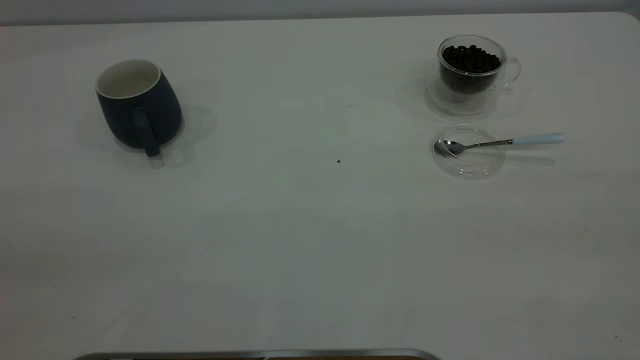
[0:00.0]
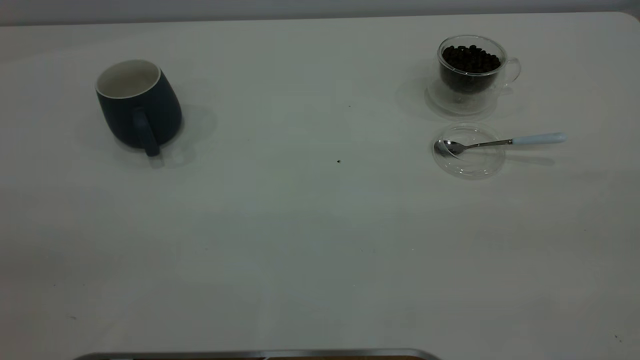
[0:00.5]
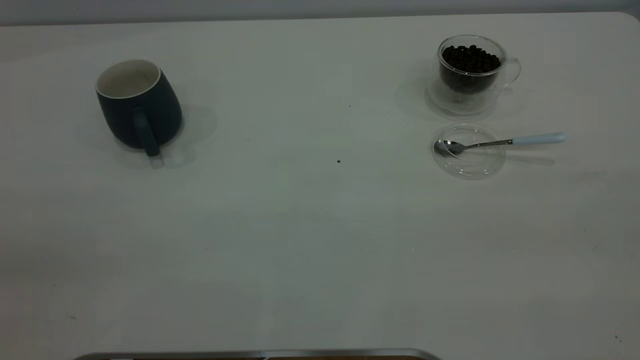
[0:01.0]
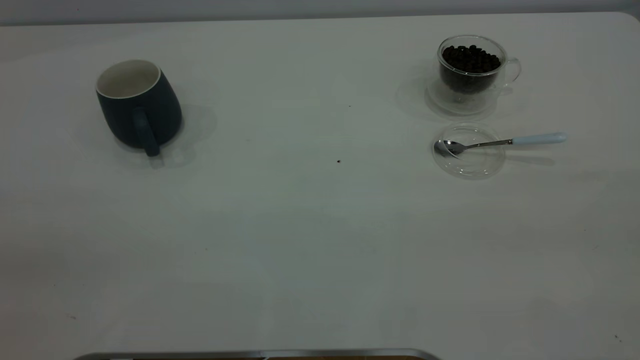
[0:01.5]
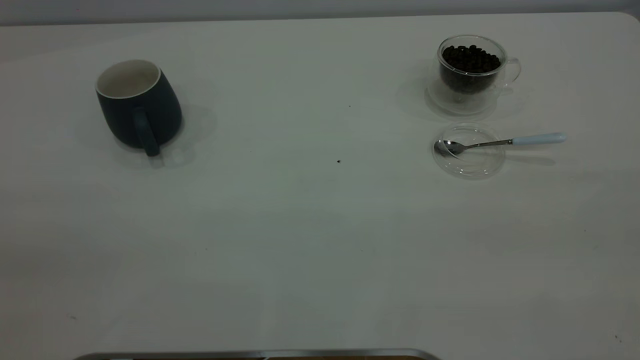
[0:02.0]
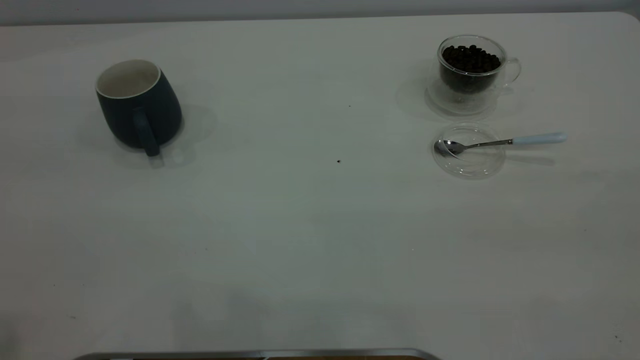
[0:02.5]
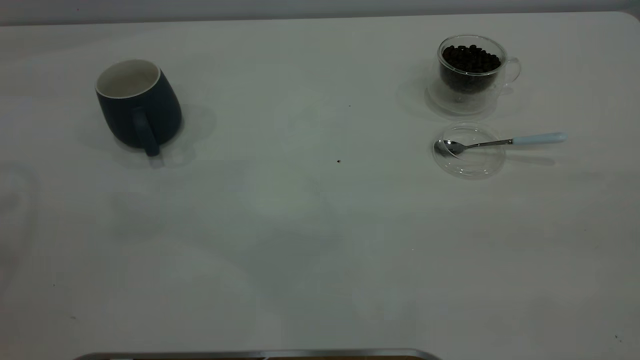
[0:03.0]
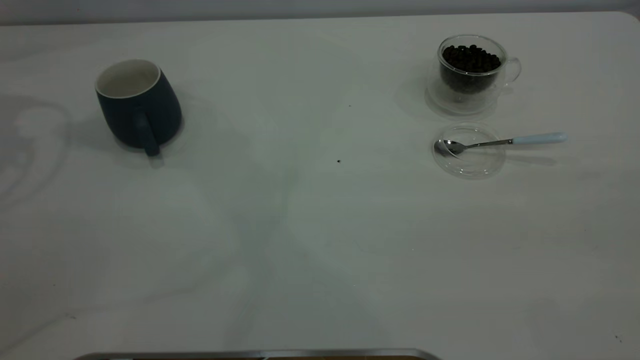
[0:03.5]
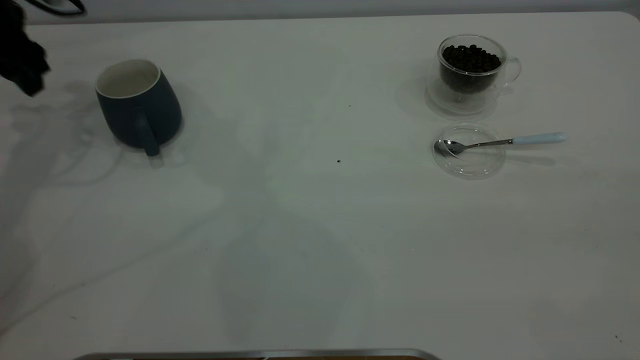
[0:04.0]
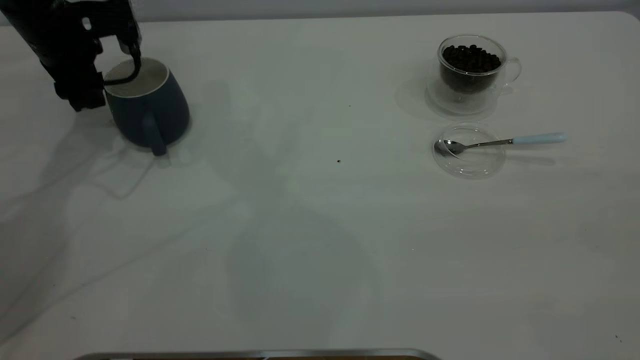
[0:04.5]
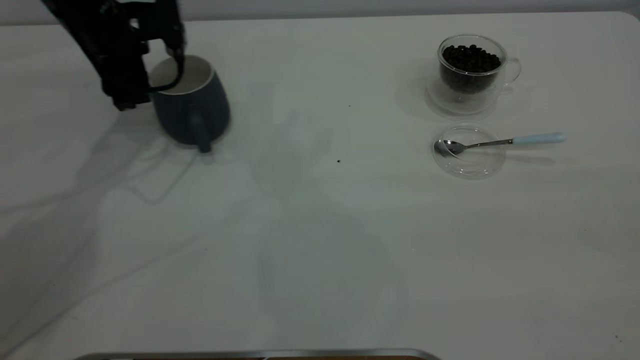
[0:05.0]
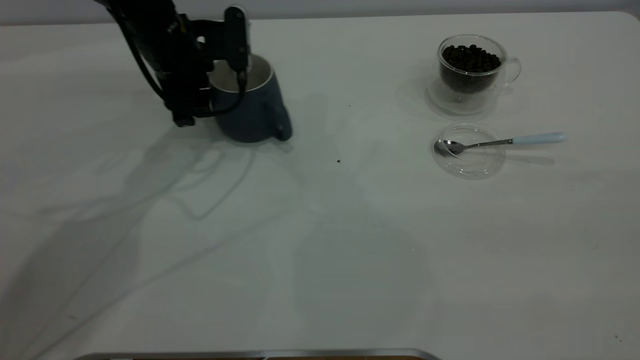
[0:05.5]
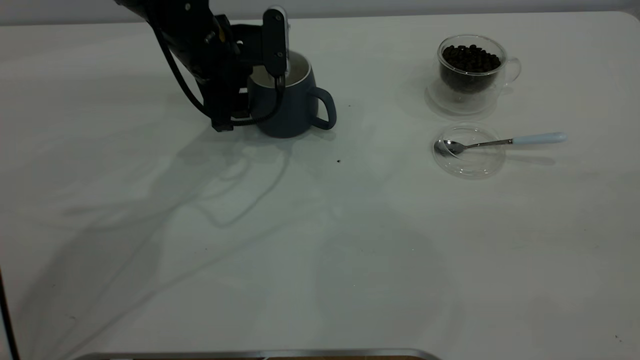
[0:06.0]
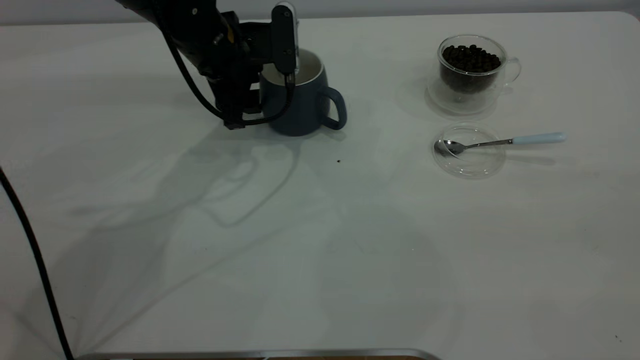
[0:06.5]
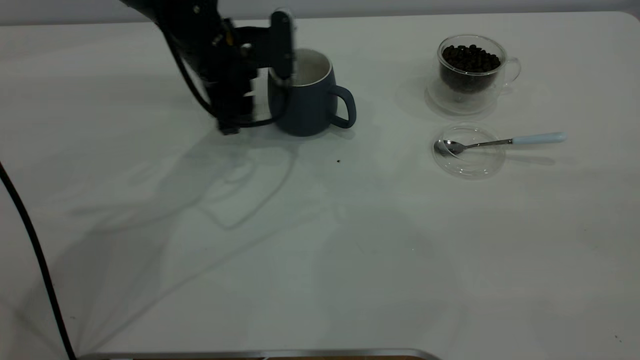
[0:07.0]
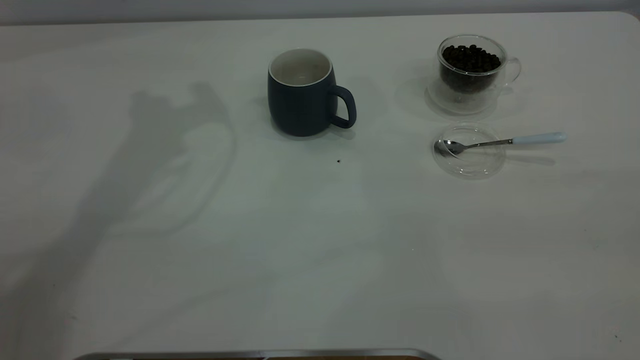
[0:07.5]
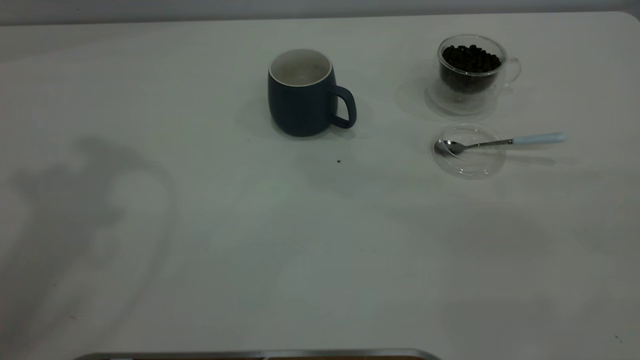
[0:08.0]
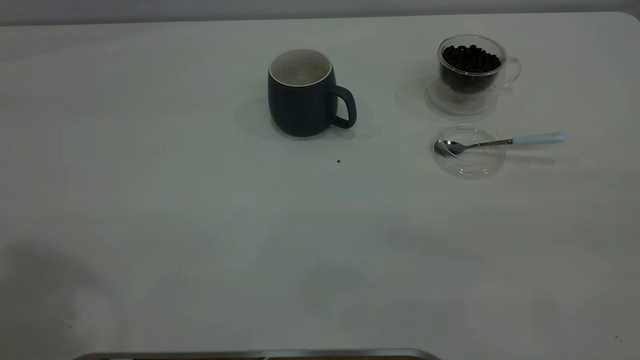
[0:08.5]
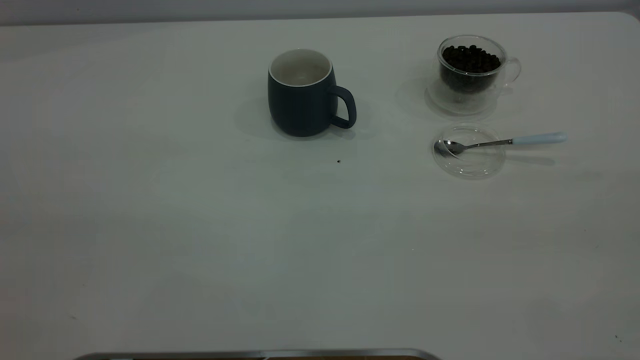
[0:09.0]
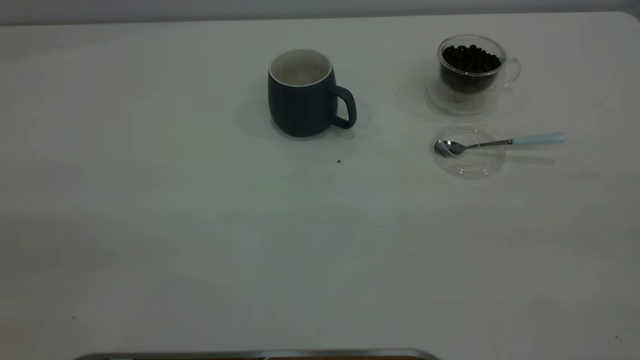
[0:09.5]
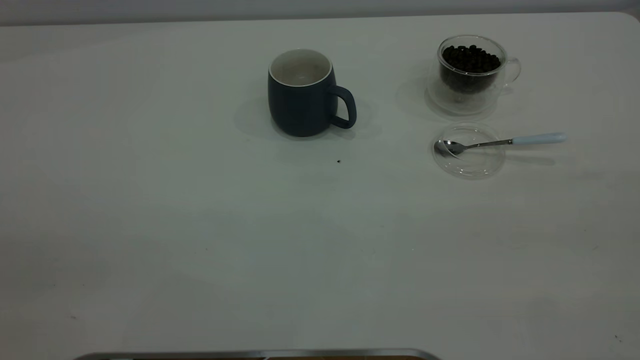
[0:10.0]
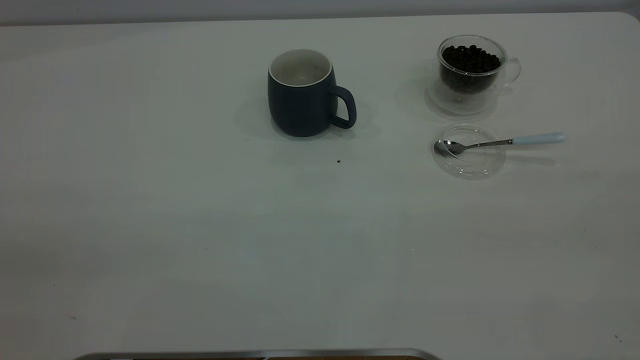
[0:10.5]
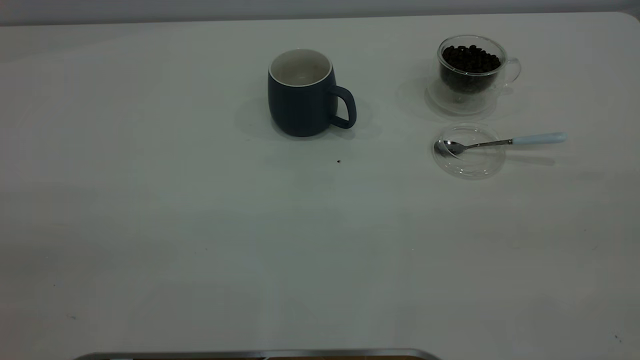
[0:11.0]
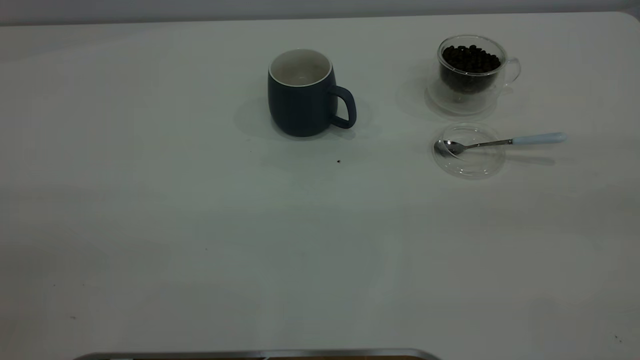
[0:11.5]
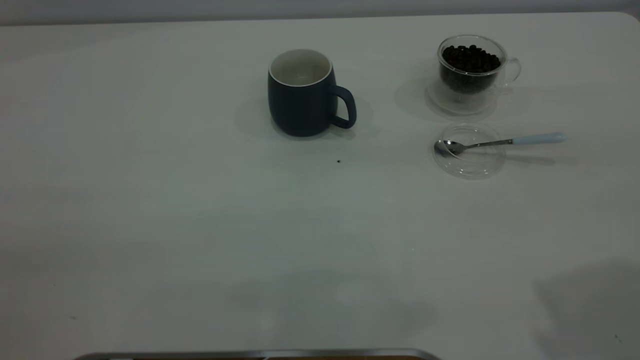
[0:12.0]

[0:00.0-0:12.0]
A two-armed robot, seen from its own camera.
Task of the whole recording: the left gripper place the grey cup in the center of the table, the right gripper take the blue spoon from the cup lid and scoop out the coffee beans from the coffee cup and put them into the grey cup, the right gripper put the spoon back into the cup lid.
Step, 0:00.0 to 0:07.0: Move the cup to the center of view.
0:00.0 to 0:02.0: Both grippers stay put.
0:02.0 to 0:04.0: The left gripper goes roughly 50 cm forward and downward.
0:04.0 to 0:06.0: The left gripper moves to the right, approximately 20 cm.
0:06.0 to 0:08.0: The left gripper moves upward, some 40 cm.

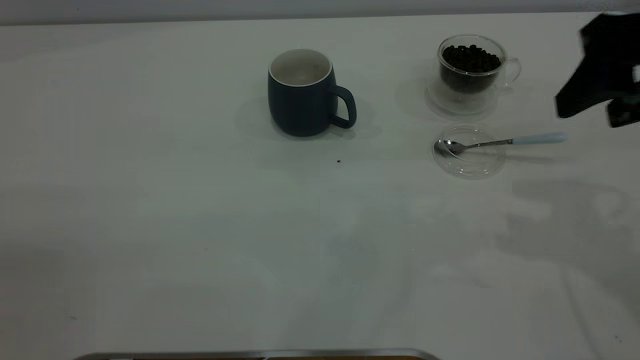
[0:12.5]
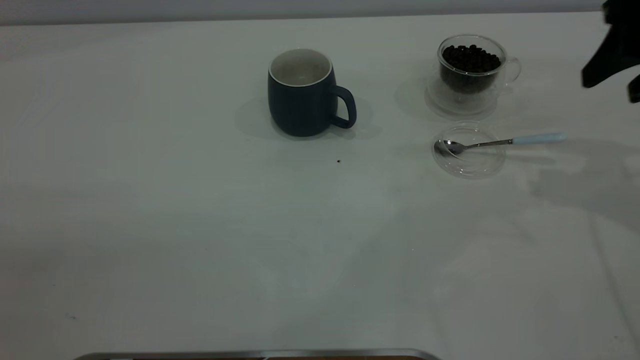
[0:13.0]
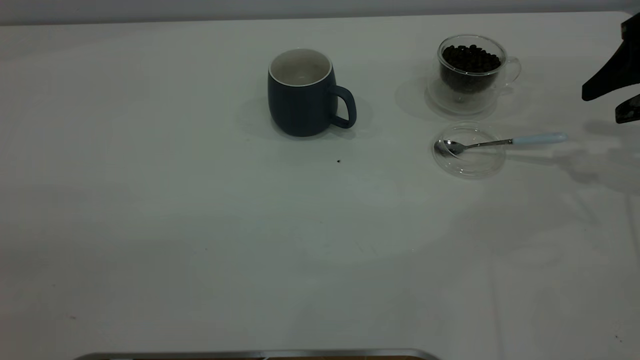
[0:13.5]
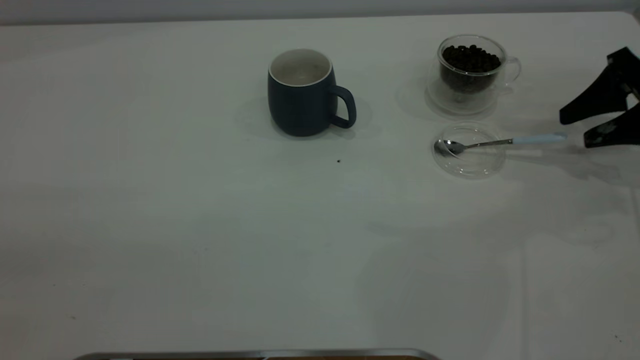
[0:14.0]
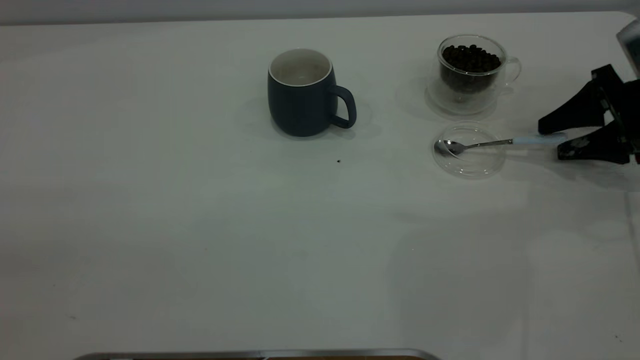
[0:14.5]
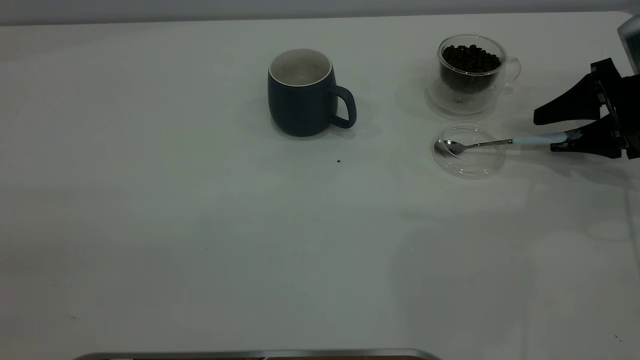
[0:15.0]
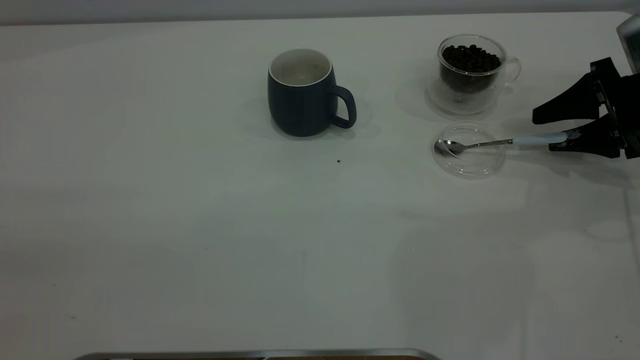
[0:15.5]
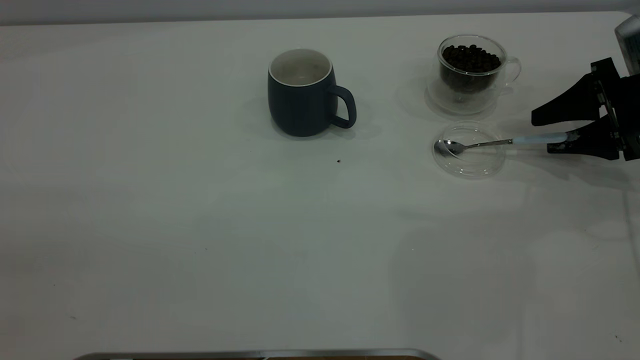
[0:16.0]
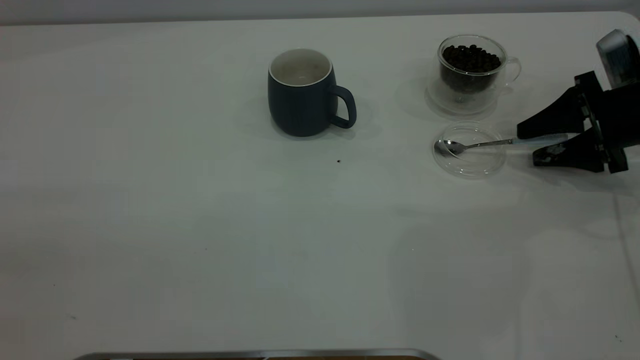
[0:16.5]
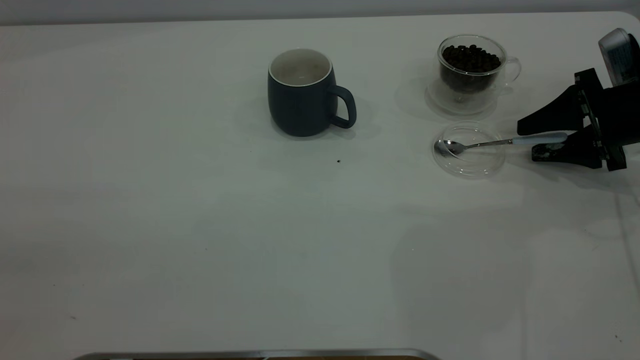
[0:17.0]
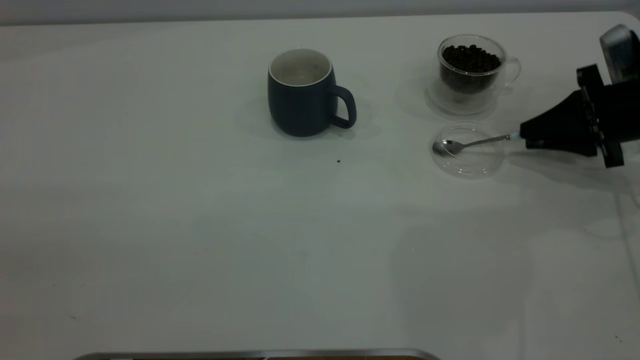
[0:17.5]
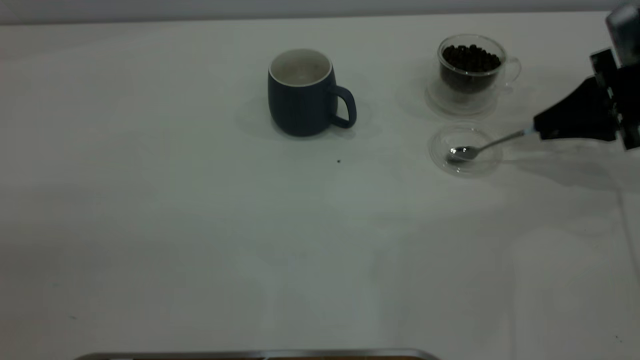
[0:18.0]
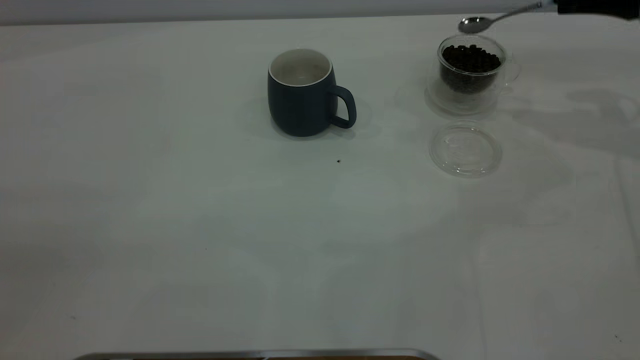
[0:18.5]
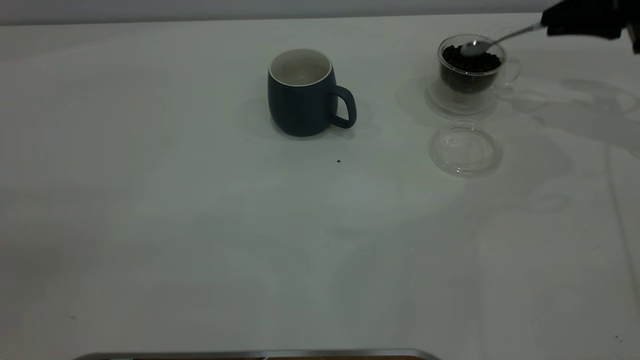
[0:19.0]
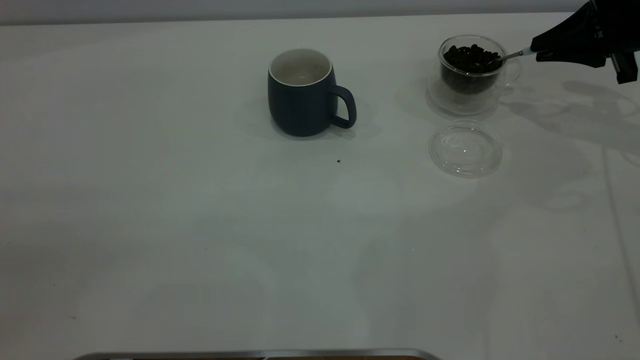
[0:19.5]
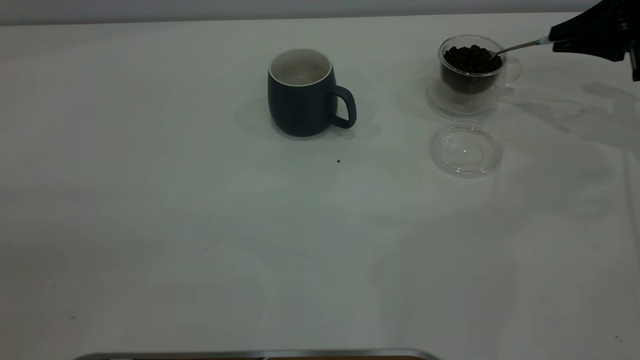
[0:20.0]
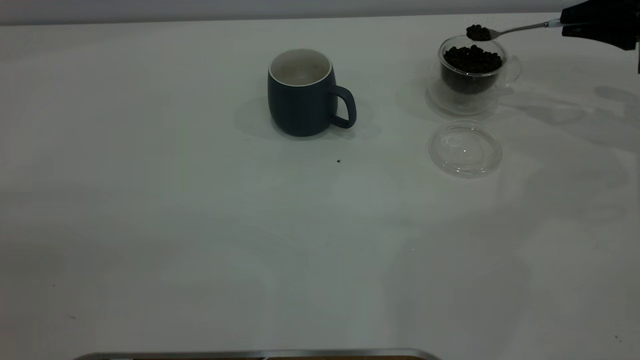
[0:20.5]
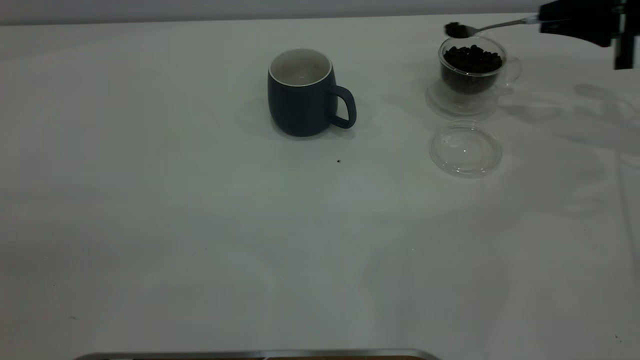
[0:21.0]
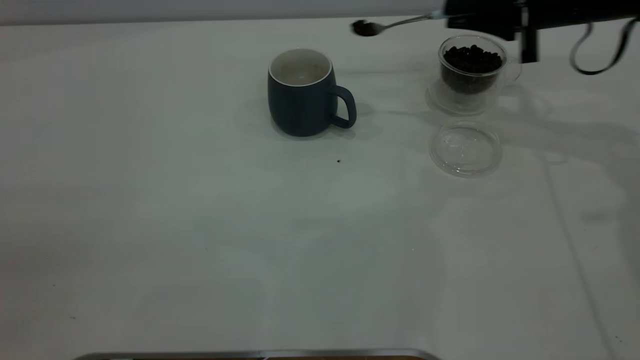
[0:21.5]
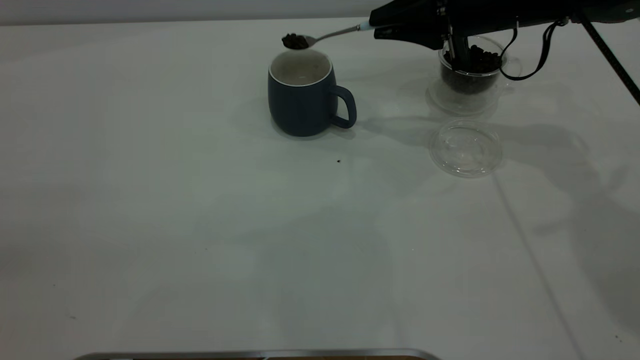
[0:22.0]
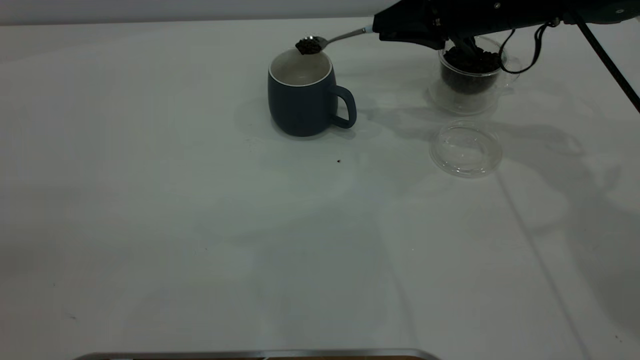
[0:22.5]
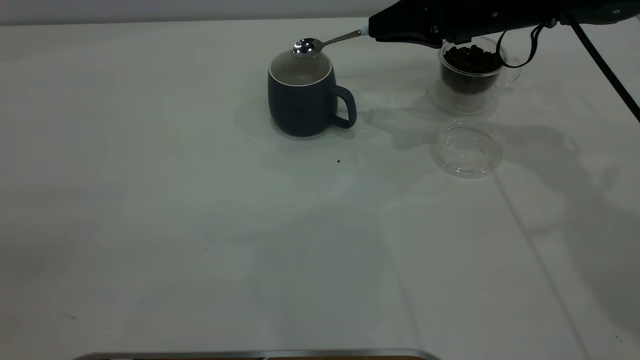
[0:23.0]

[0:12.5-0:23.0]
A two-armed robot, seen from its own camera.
Task of the whole recording: the left gripper place the grey cup in the center of the table, the right gripper take the blue spoon from the cup lid and scoop out the coffee beans from the coffee cup and put them into the grey cup, the right gripper put the spoon back into the cup lid.
Step, 0:12.5 to 0:18.0: Pick up the spoon.
0:12.5 to 0:14.5: The right gripper heads downward, to the right and forward, covering about 20 cm.
0:14.5 to 0:16.5: The grippers make only small movements.
0:16.5 to 0:19.0: The right gripper goes about 10 cm upward and forward, and closes.
0:19.0 to 0:21.0: The grippers move only a little.
0:21.0 to 0:23.0: The right gripper moves to the left, some 15 cm.
